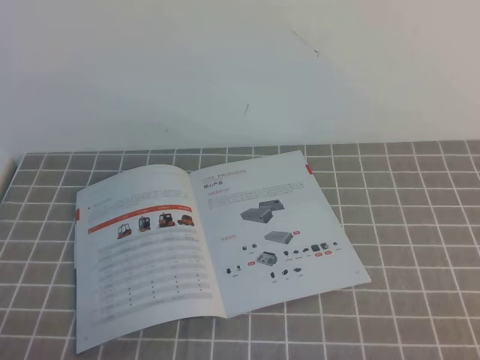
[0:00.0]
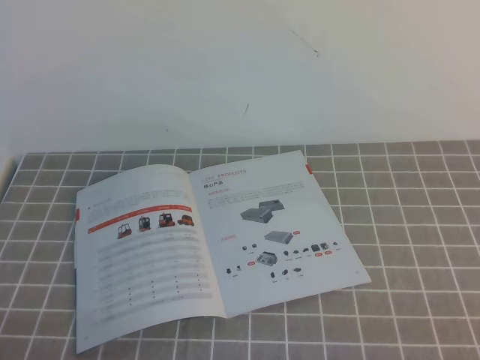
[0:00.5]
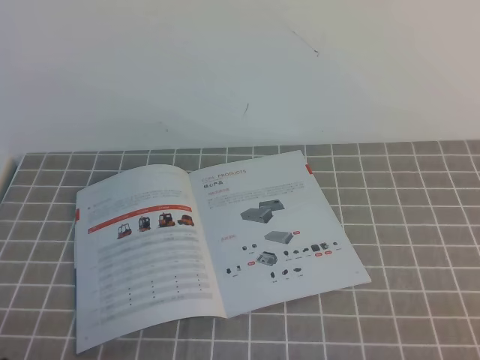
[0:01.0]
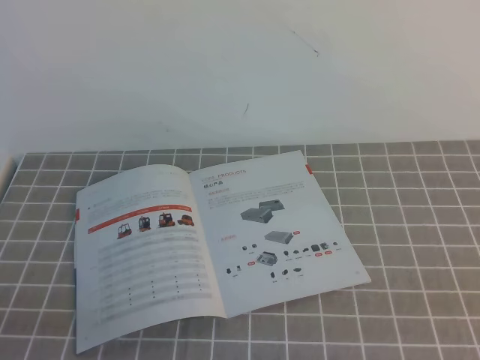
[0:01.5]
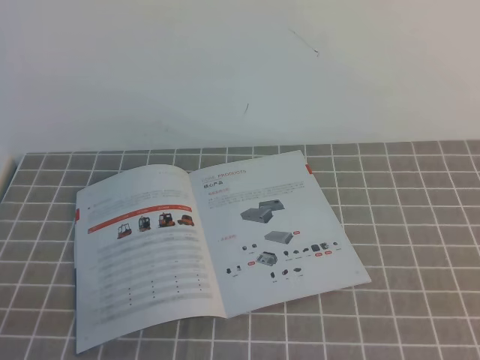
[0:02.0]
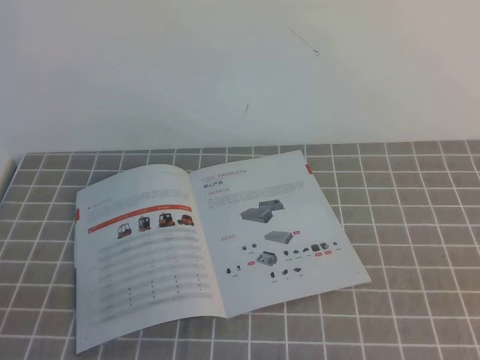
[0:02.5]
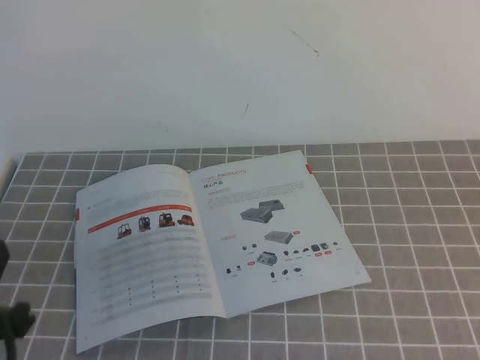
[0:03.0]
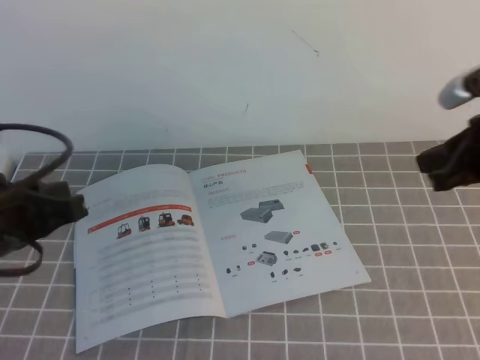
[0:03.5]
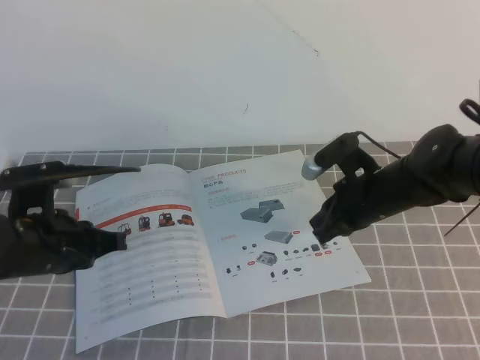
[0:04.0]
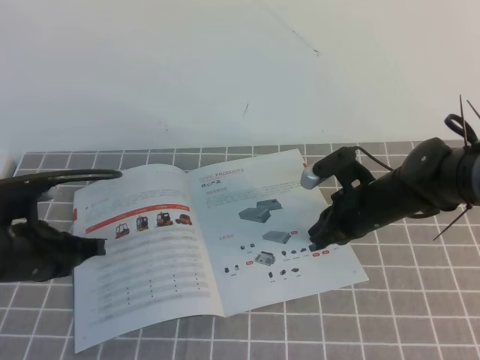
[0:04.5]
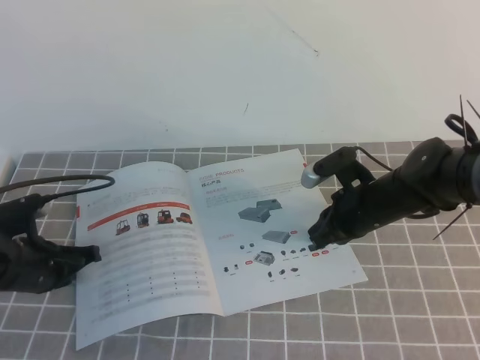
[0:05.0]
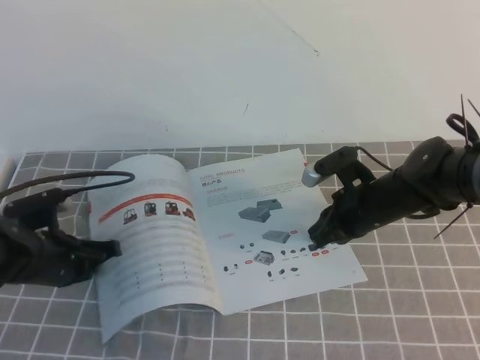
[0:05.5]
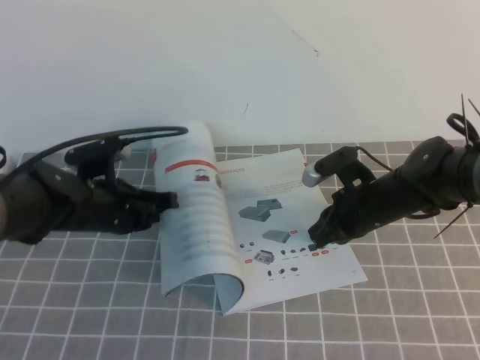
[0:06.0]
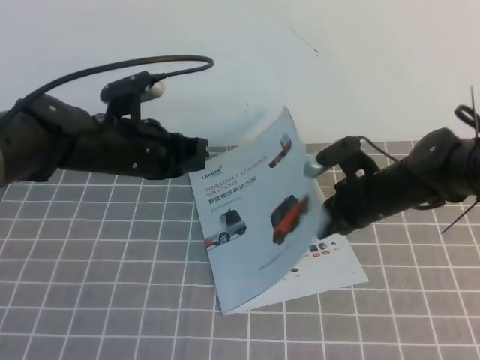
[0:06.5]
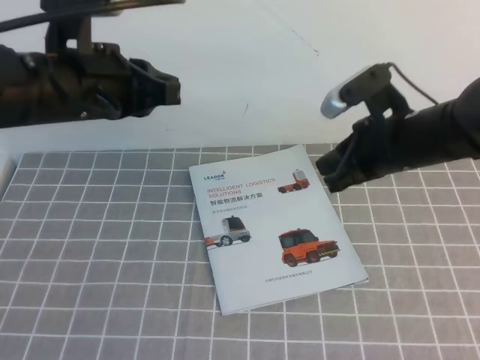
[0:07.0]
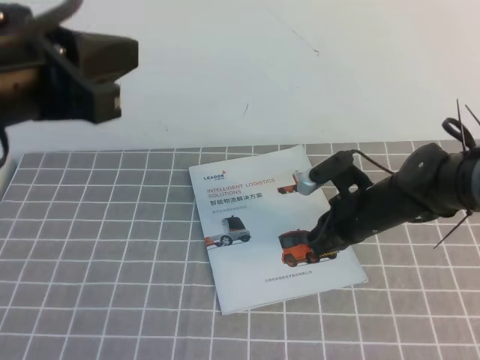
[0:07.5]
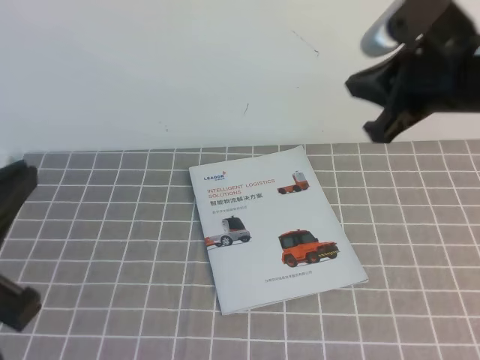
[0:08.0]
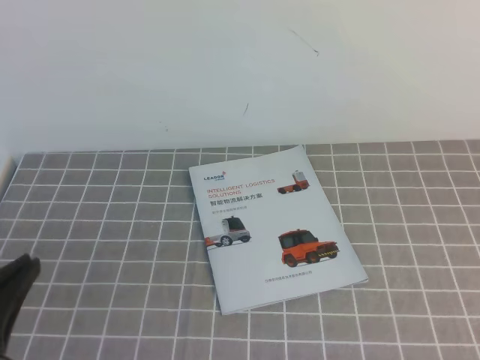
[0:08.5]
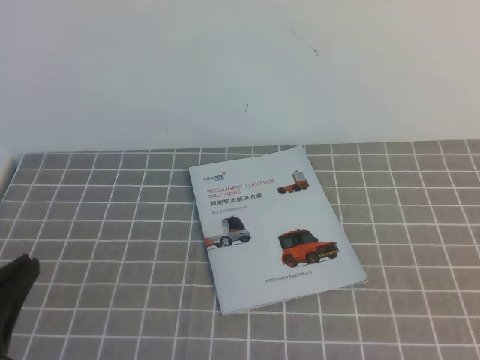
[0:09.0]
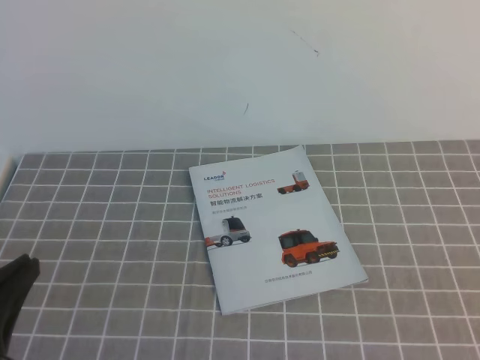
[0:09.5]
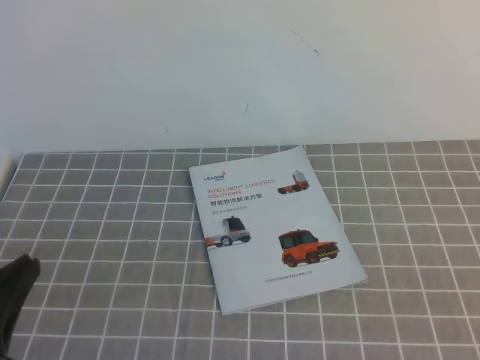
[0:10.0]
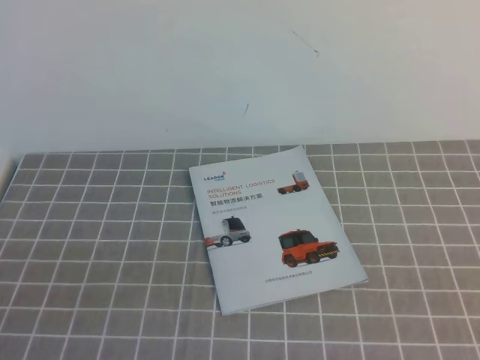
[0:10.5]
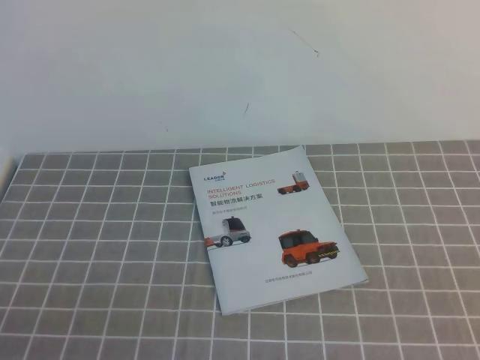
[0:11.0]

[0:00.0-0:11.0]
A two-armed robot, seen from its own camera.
Task of the whole recording: on the grey tablecloth, hold the book with one hand and close it with the other.
0:02.0 to 0:03.5: The right gripper heads forward, covering roughly 30 cm. The left gripper shifts roughly 15 cm forward.
0:03.5 to 0:05.5: The left gripper travels downward and forward by about 20 cm. The right gripper moves downward, to the left and forward, roughly 20 cm.
0:05.5 to 0:07.5: The left gripper is displaced upward by approximately 30 cm. The right gripper travels upward and back again, approximately 10 cm each way.
0:07.5 to 0:09.0: The right gripper travels backward, upward and to the right by about 40 cm, while the left gripper is displaced downward and backward by some 20 cm.
0:09.0 to 0:11.0: The left gripper goes about 5 cm downward.
